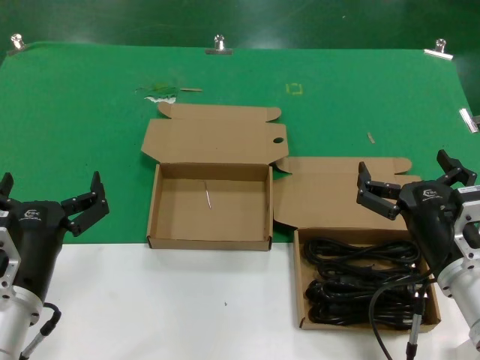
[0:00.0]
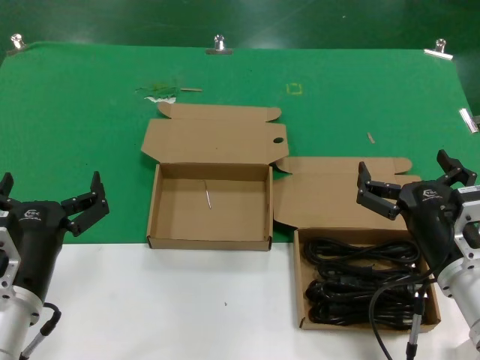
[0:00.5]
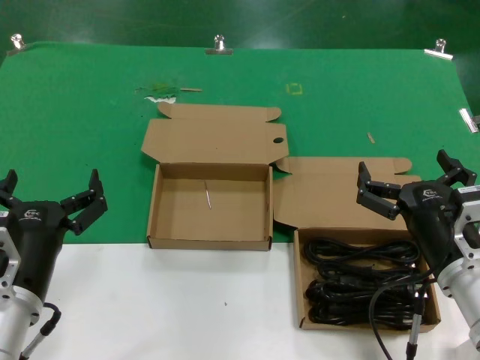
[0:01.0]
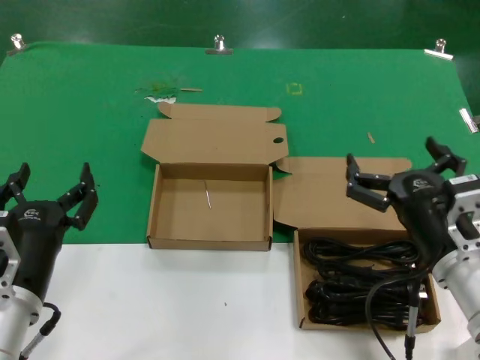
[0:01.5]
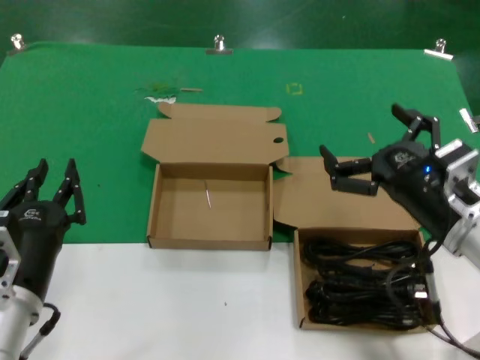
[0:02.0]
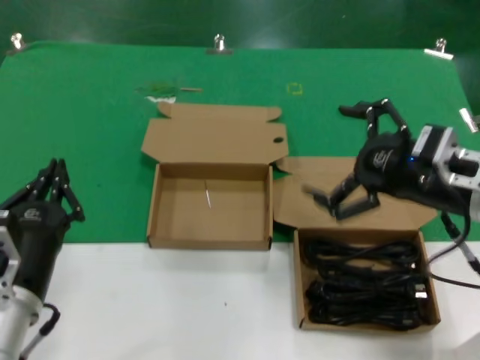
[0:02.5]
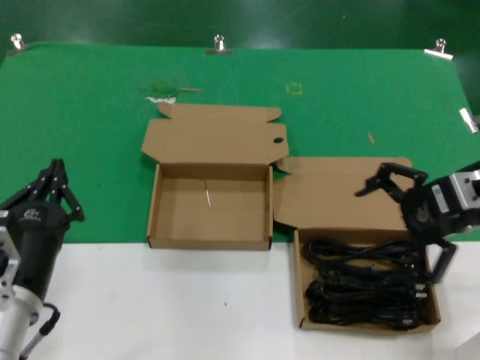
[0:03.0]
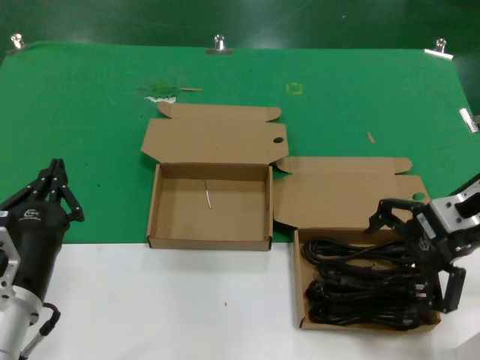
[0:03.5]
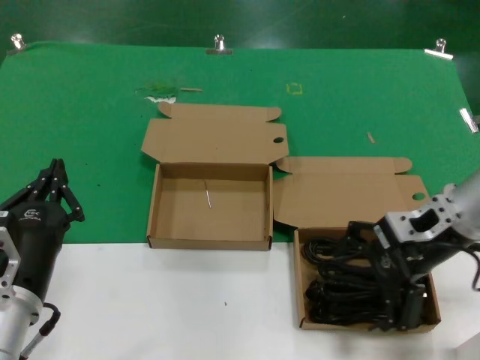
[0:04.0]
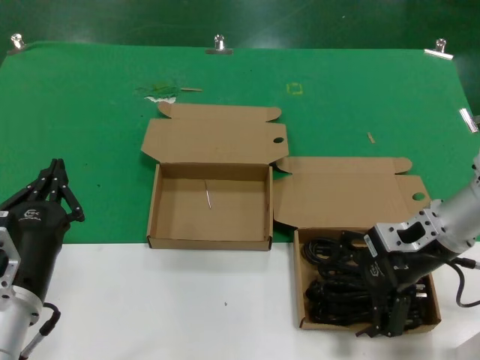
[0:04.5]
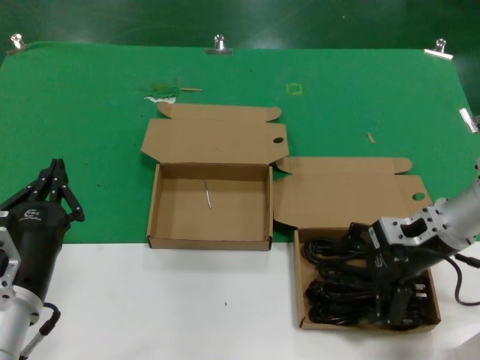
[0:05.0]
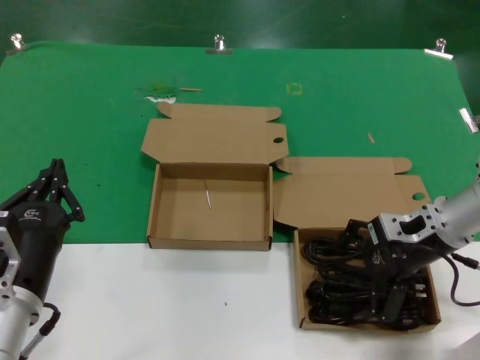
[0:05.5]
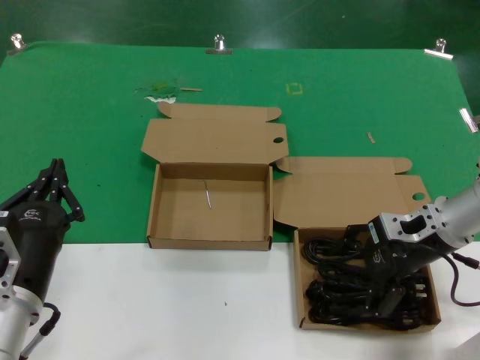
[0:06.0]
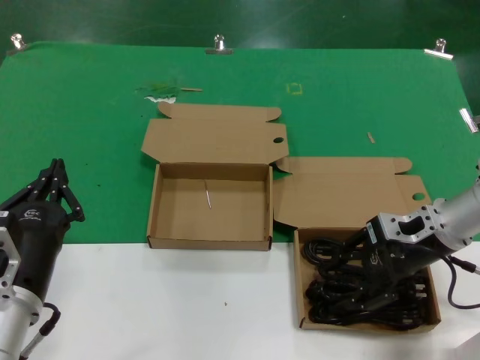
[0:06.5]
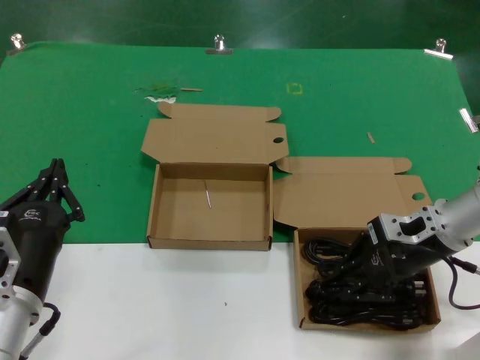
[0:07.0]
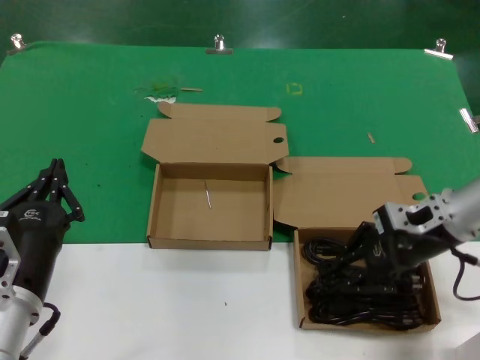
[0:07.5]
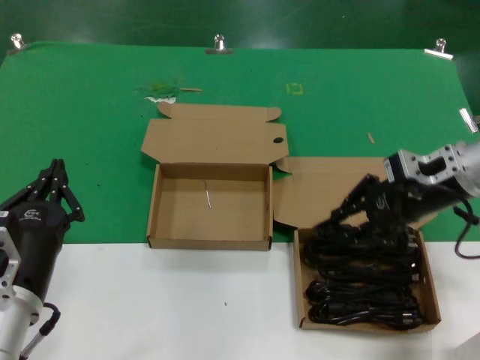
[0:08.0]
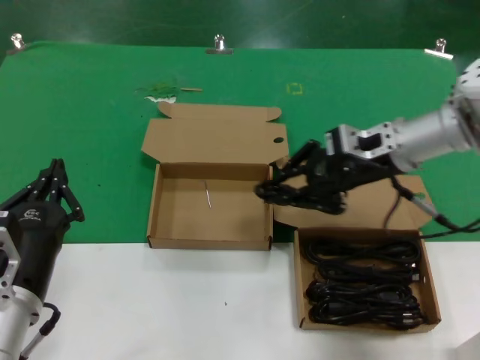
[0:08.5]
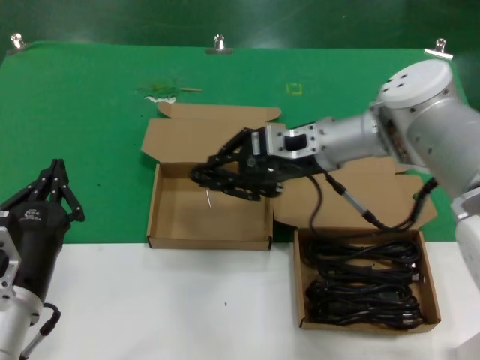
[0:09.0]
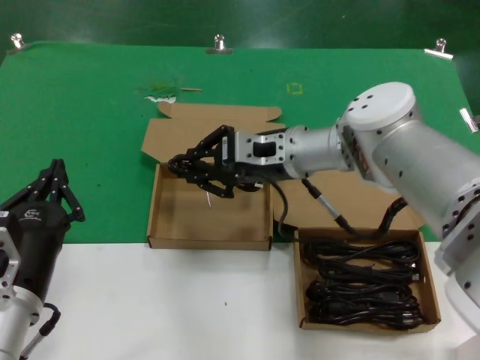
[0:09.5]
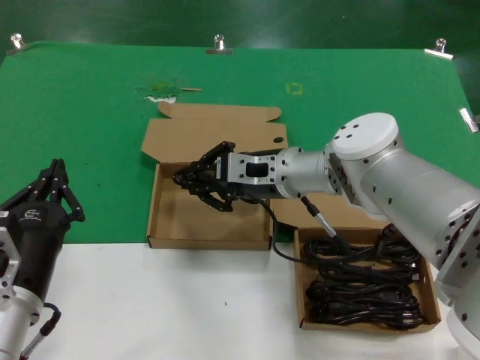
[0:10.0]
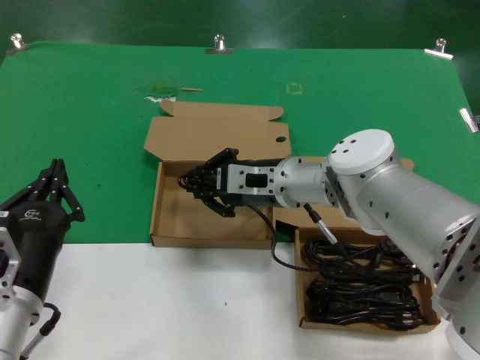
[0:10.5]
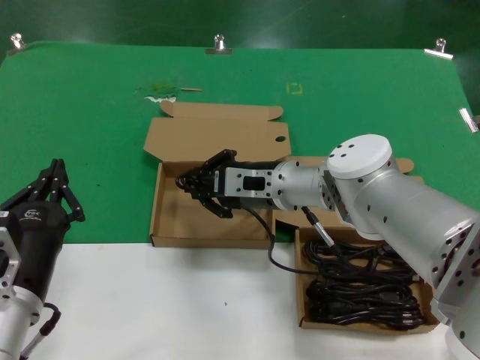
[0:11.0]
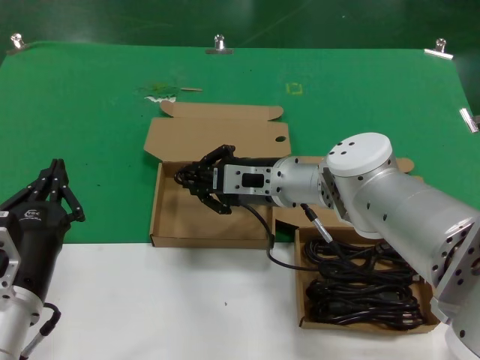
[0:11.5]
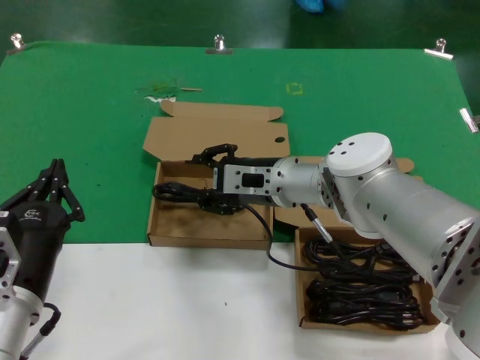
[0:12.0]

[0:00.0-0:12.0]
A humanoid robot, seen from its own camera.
Task of the whole recording: take the parts from the box containing them and put them into an empty box.
Step, 0:00.0 to 0:07.0: Grasp the data cable.
Step, 0:07.5 to 0:11.5: Place the data cable in the another box.
0:00.0 to 0:02.0: The right hand shifts roughly 5 cm upward.
0:02.0 to 0:04.0: The right hand is displaced forward and upward by about 10 cm.
0:04.0 to 0:06.0: The right hand goes some 5 cm downward.
0:06.0 to 0:08.0: The right hand shifts some 5 cm upward.
0:08.0 to 0:10.0: The right hand goes about 20 cm to the left.
0:10.0 to 0:12.0: The hands move only a little.

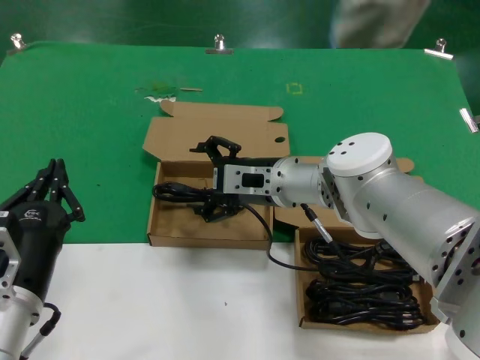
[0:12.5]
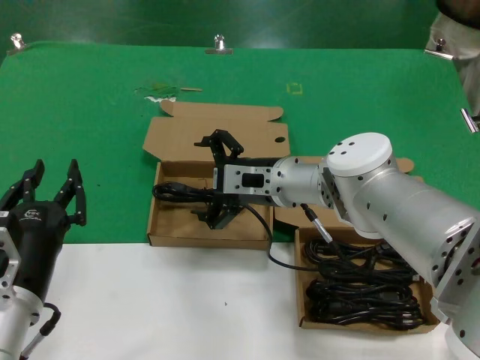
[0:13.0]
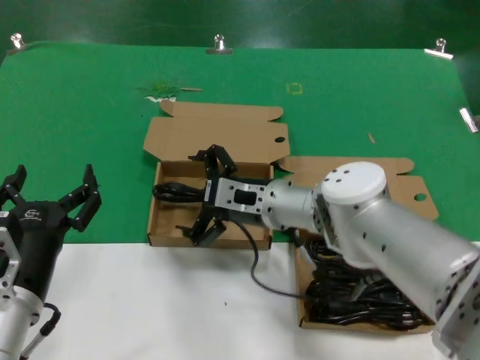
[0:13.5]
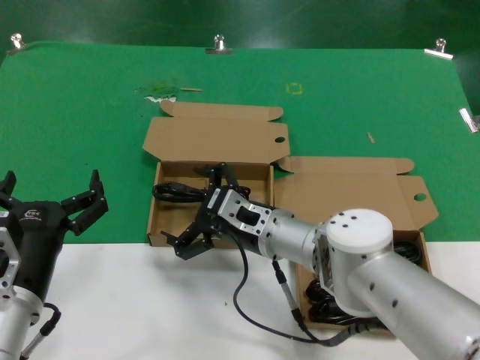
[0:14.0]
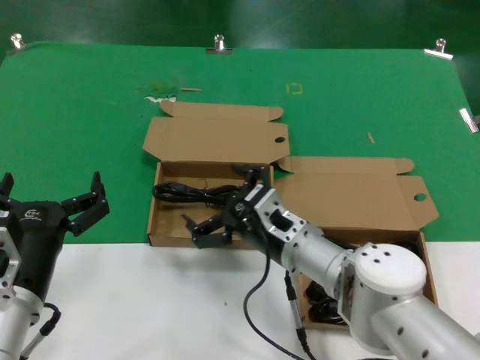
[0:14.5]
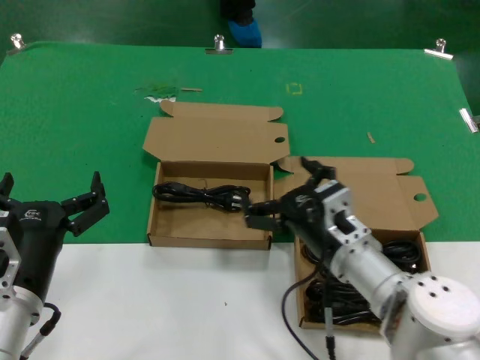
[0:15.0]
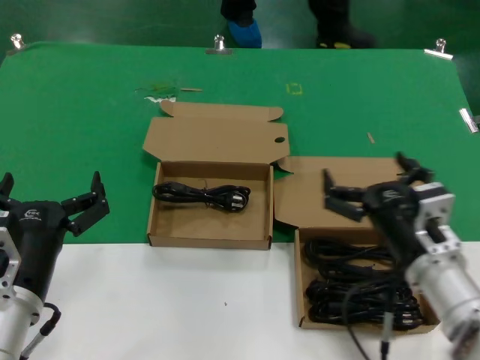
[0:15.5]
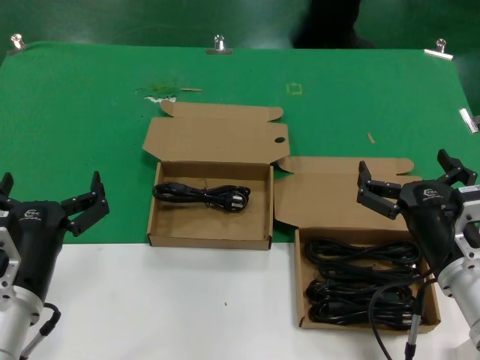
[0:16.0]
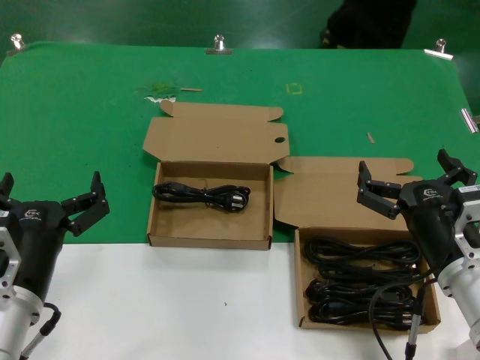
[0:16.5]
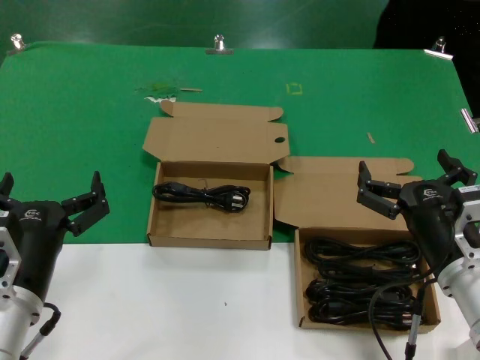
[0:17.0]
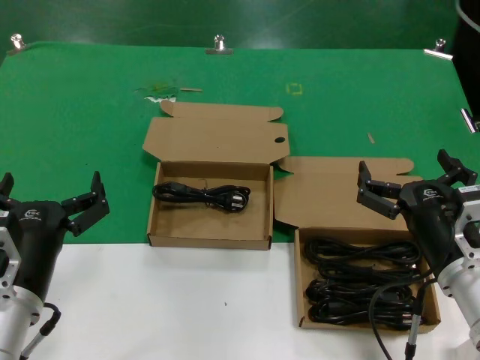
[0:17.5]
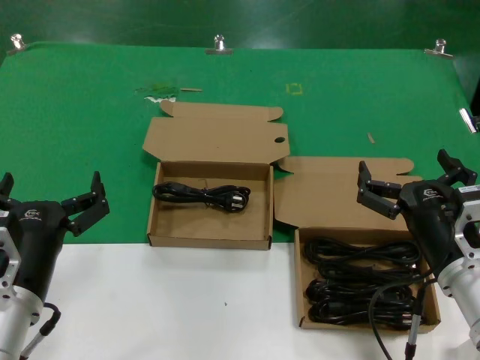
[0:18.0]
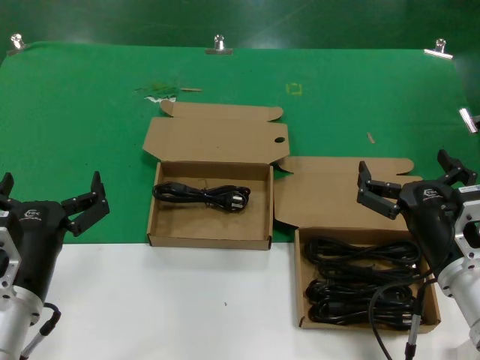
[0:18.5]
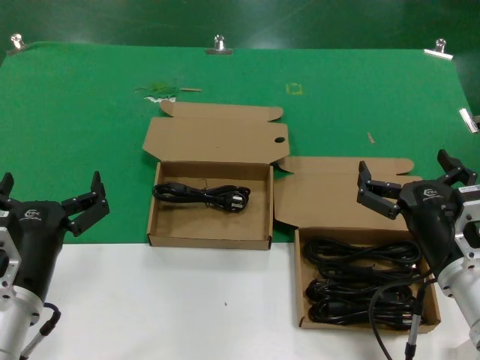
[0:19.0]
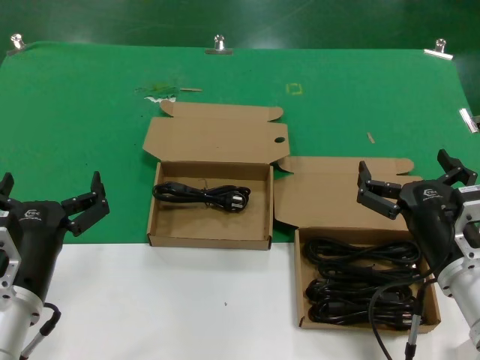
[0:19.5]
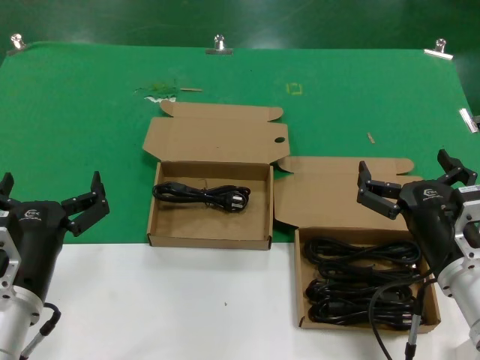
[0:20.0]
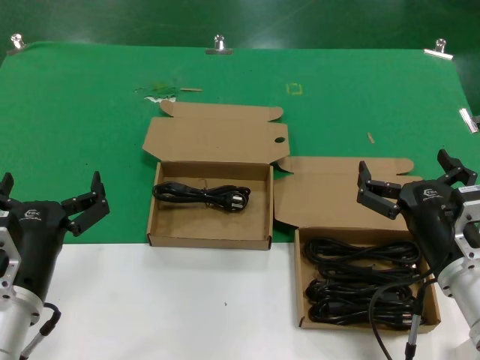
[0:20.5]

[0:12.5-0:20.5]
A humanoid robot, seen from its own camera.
Task of the whole recording: take the parts from the box containing them and put them into an empty box.
0:12.5 to 0:14.5: The right hand shifts approximately 10 cm backward and downward.
0:14.5 to 0:16.5: The right hand moves to the right and backward, roughly 20 cm.
0:16.5 to 0:20.5: Both hands stay about where they are.
